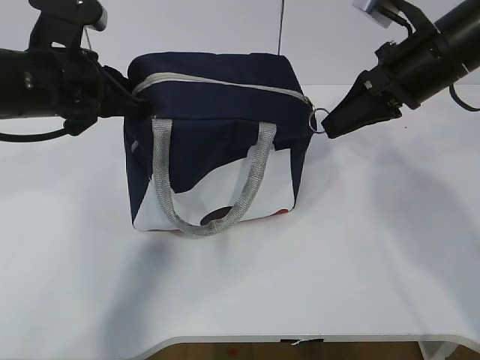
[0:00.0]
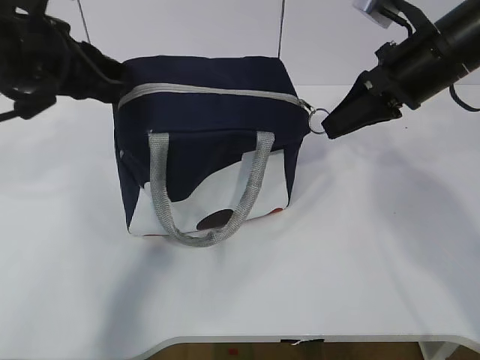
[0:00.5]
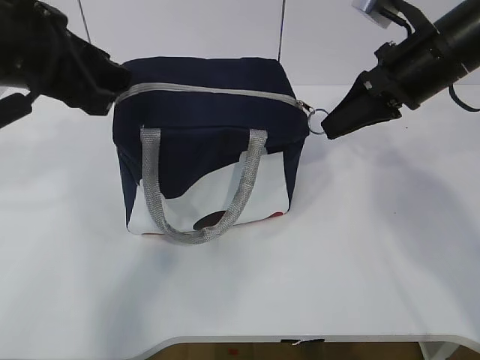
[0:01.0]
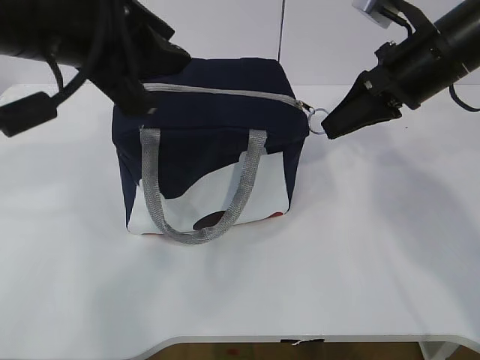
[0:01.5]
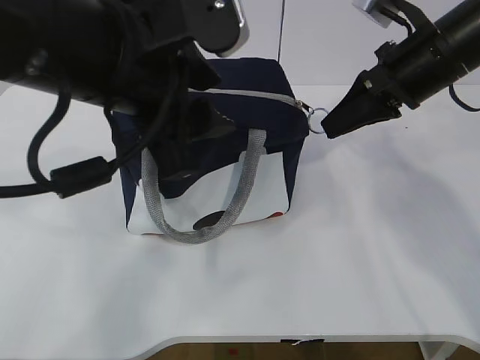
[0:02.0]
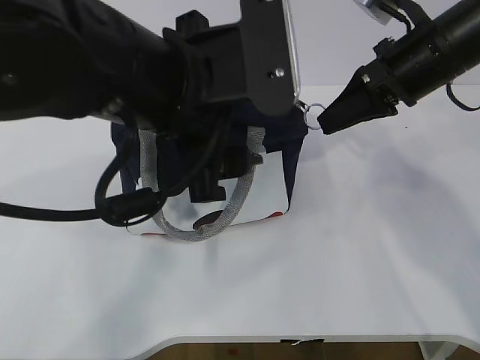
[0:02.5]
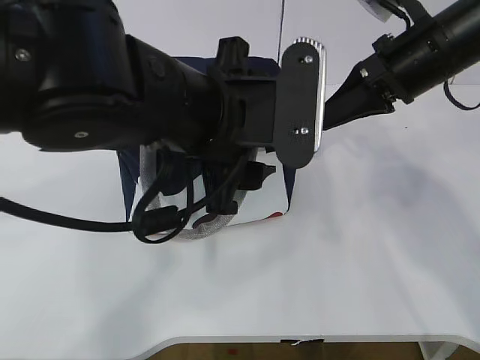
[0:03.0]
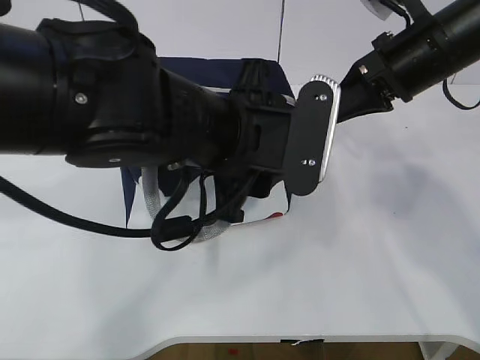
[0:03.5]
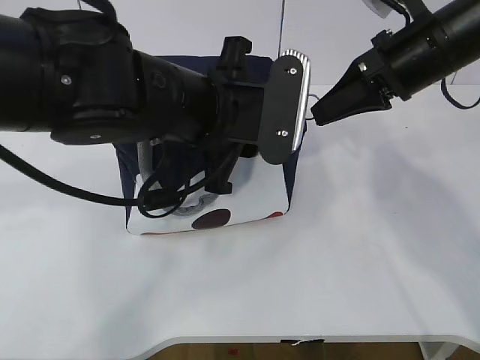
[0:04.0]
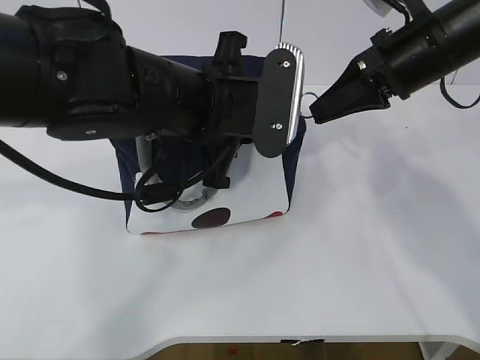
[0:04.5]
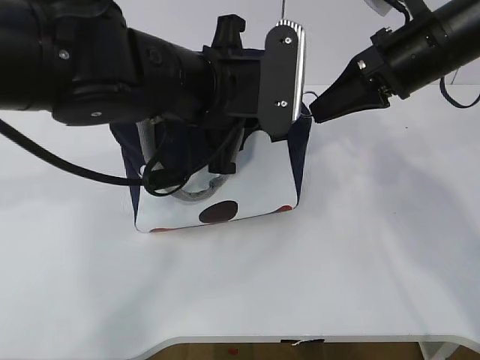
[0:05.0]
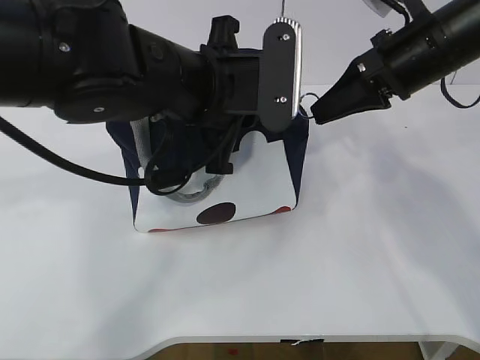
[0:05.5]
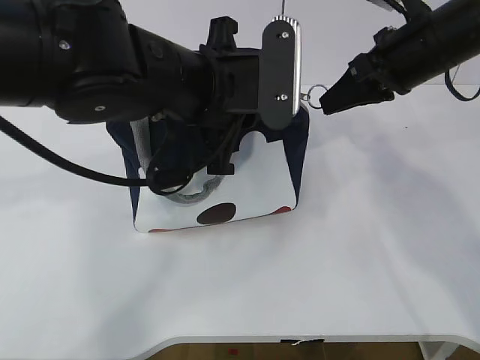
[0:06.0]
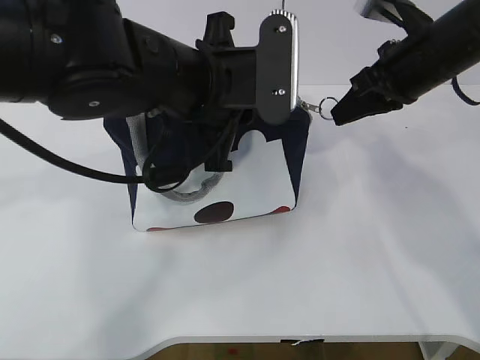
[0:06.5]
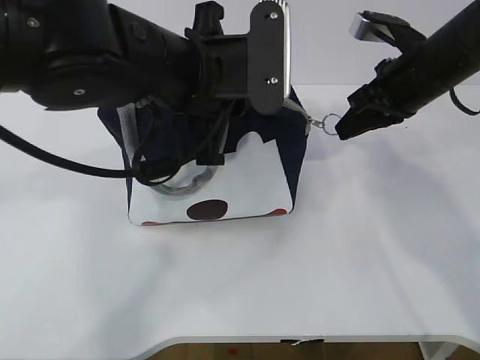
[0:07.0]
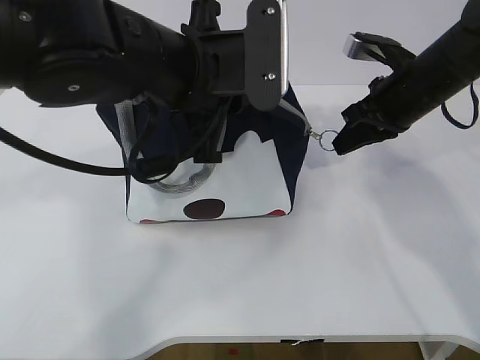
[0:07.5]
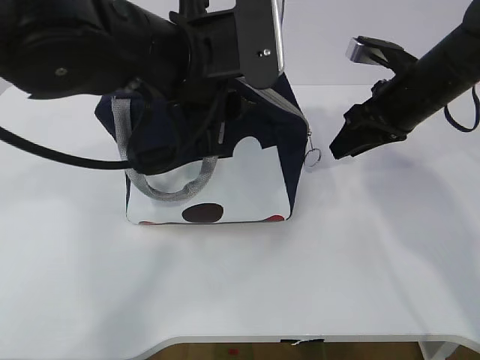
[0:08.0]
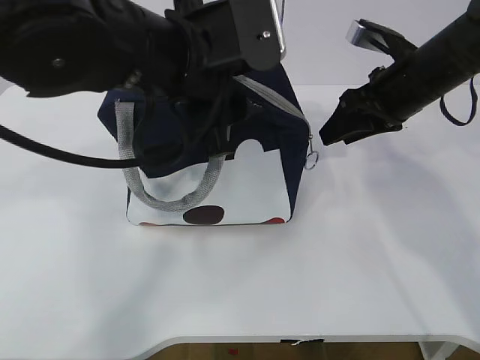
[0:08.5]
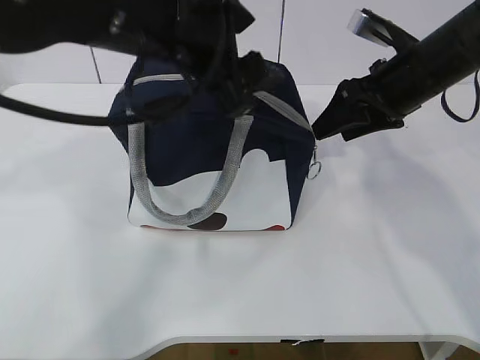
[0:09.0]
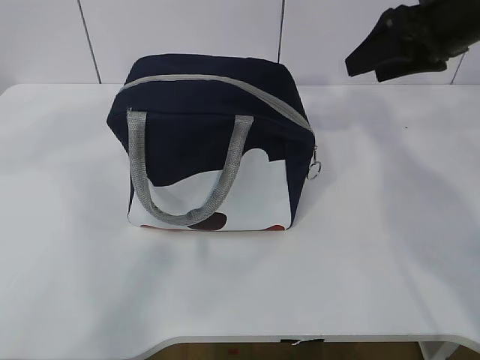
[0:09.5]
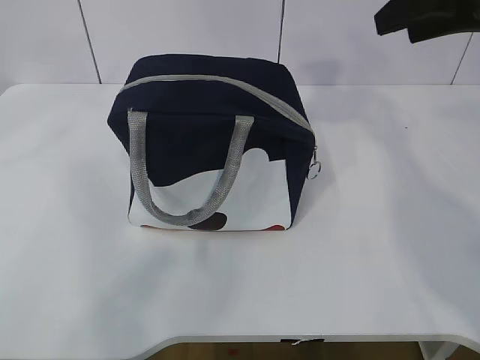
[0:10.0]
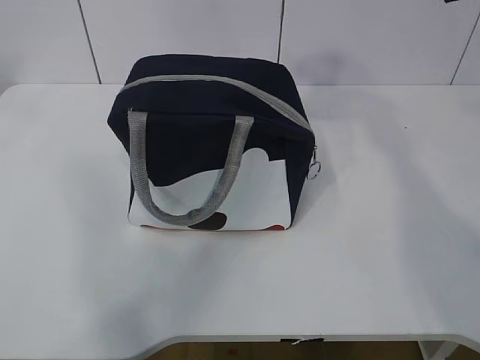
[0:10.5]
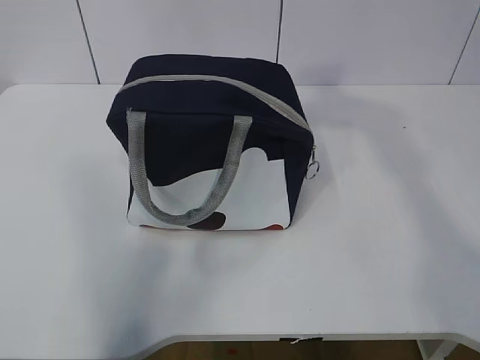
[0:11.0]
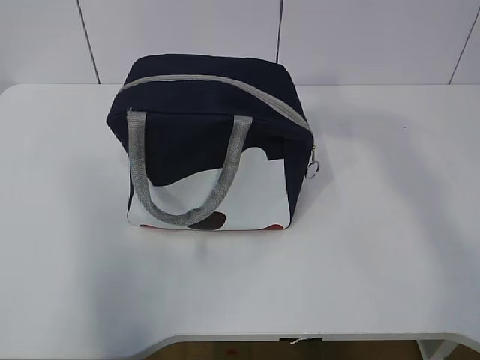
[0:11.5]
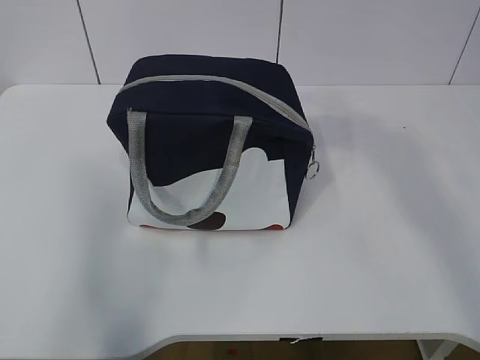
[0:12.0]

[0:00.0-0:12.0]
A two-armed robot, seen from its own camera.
0:00.0 to 0:02.0: The left gripper moves backward, to the right and upward, roughly 15 cm, and opens its fingers.
0:02.0 to 0:04.0: The left gripper heads downward and forward, covering some 10 cm.
0:04.0 to 0:06.0: The left gripper closes its fingers.
0:06.0 to 0:08.0: The left gripper opens its fingers. The right gripper moves downward, some 5 cm, and opens its fingers.
0:08.0 to 0:10.0: The left gripper heads upward and to the left, covering approximately 25 cm. The right gripper is displaced upward by approximately 15 cm, and opens its fingers.
0:10.0 to 0:12.0: The left gripper heads backward and to the left, covering approximately 25 cm. The right gripper shifts about 25 cm backward and upward.

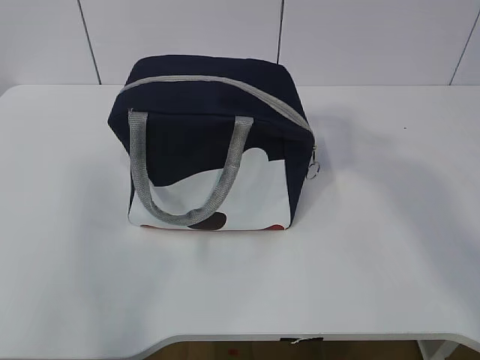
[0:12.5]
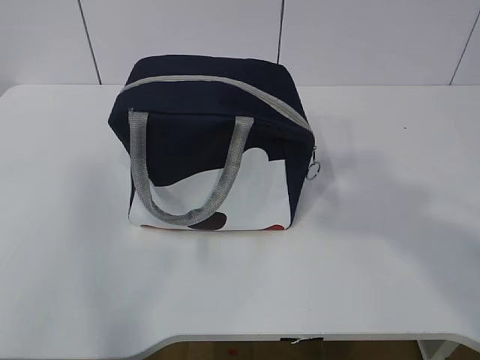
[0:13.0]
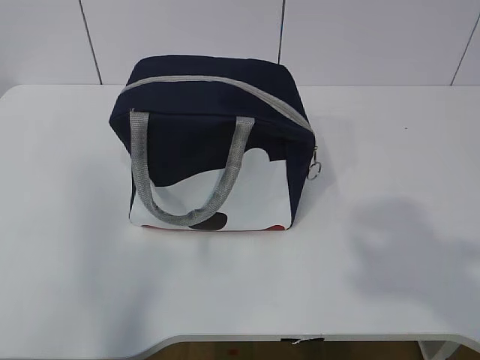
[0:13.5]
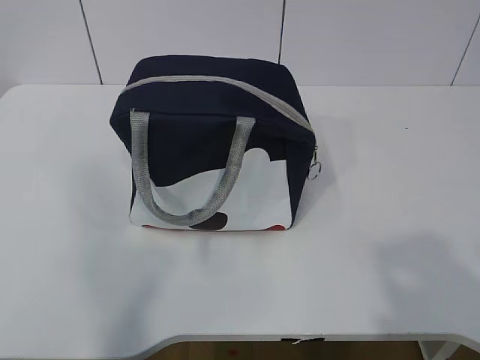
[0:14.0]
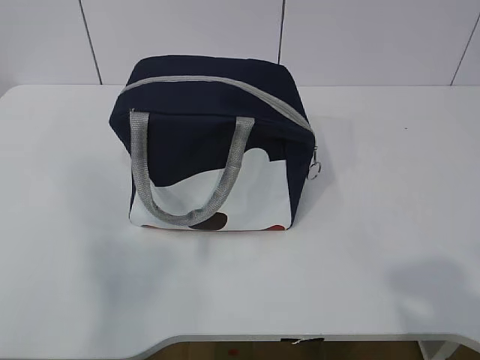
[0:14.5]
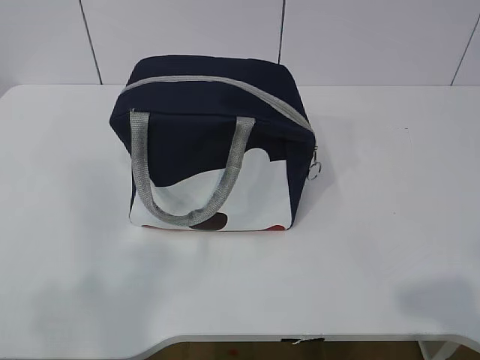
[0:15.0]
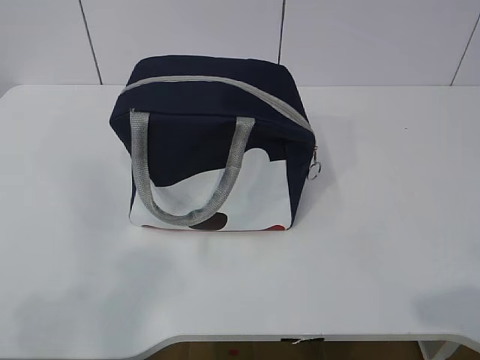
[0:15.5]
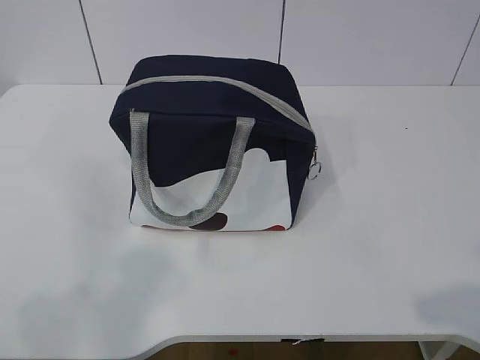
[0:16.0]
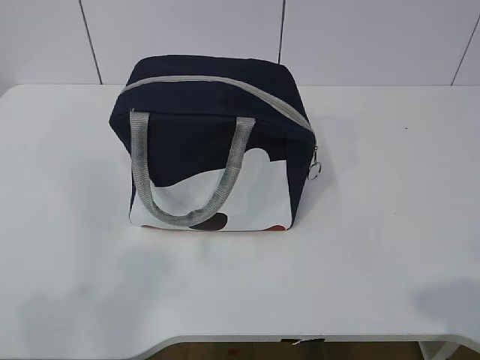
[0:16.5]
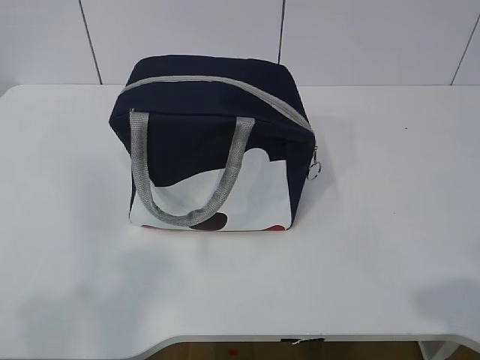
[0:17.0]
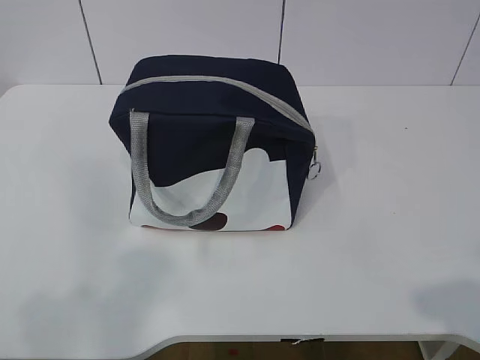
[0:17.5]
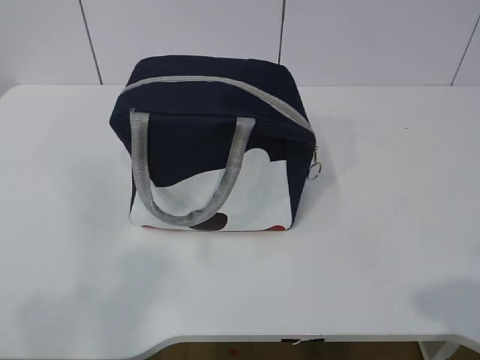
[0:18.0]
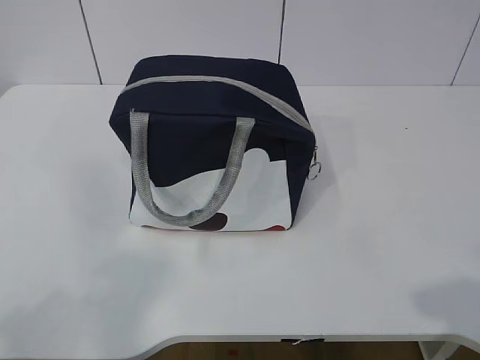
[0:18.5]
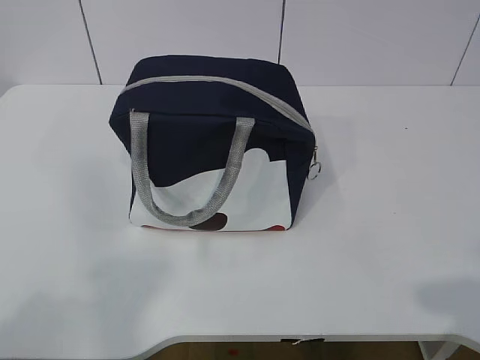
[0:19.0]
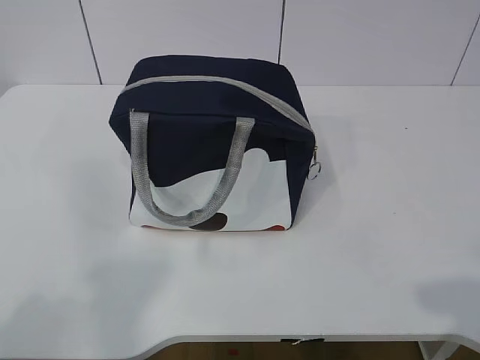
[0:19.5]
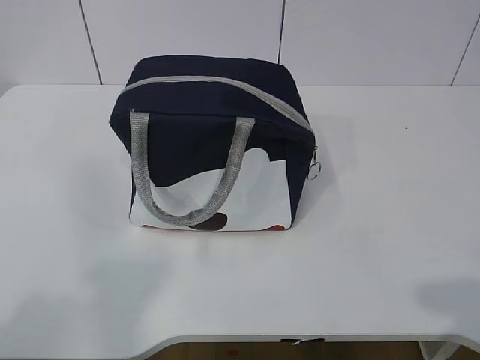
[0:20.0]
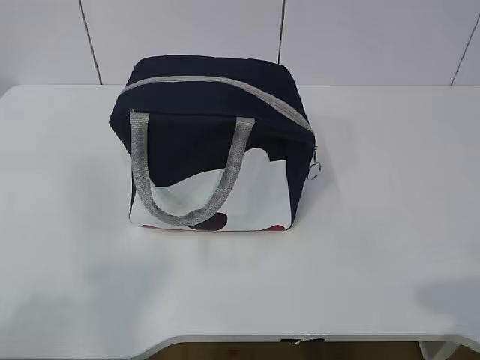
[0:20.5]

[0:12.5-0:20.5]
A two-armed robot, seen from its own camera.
0:12.5 to 0:14.5: The right gripper travels downward and backward by some 20 cm, while the left gripper moves downward, some 15 cm.
0:14.5 to 0:16.5: The right gripper moves downward, roughly 5 cm.

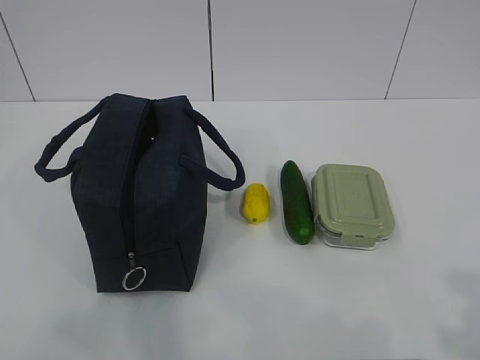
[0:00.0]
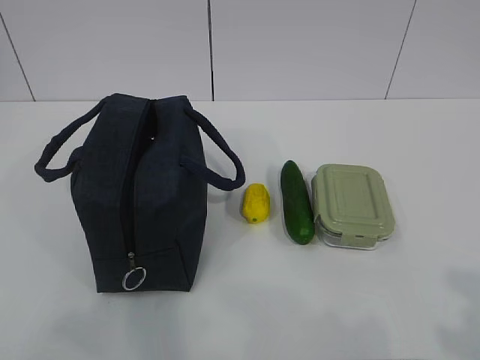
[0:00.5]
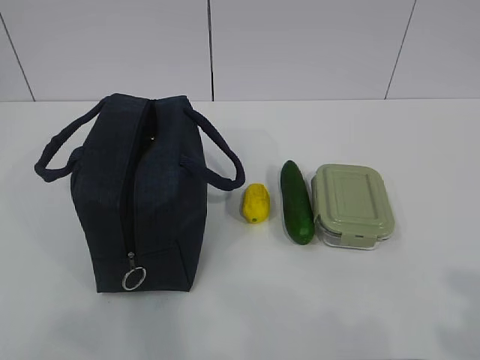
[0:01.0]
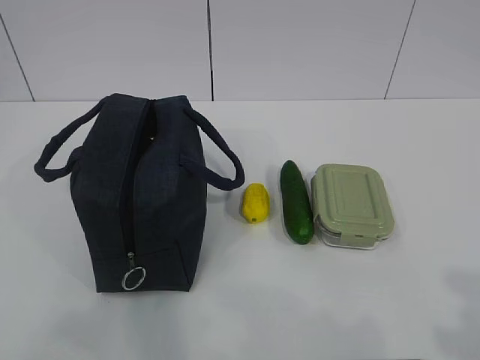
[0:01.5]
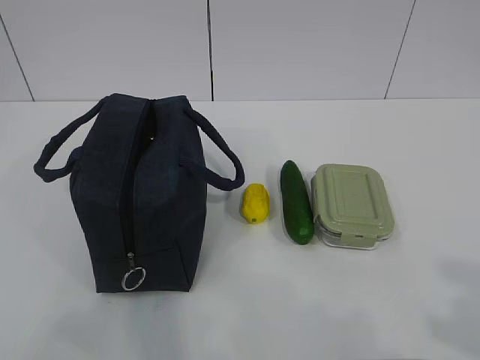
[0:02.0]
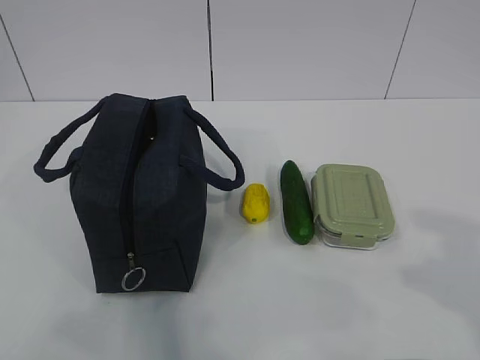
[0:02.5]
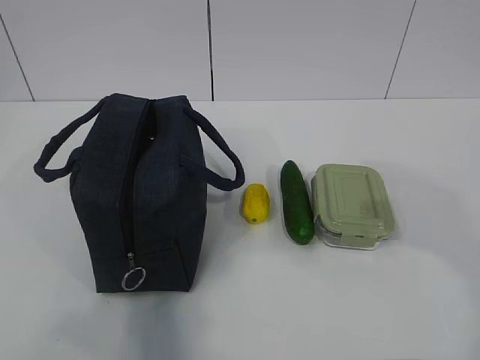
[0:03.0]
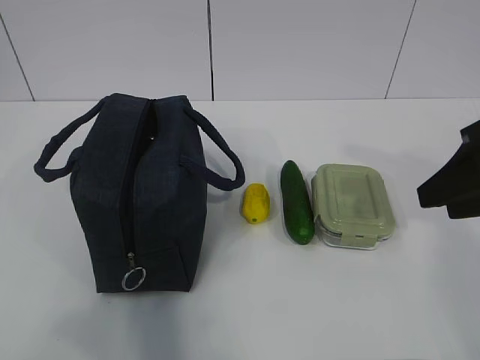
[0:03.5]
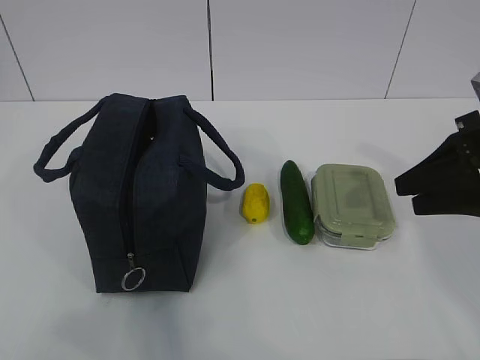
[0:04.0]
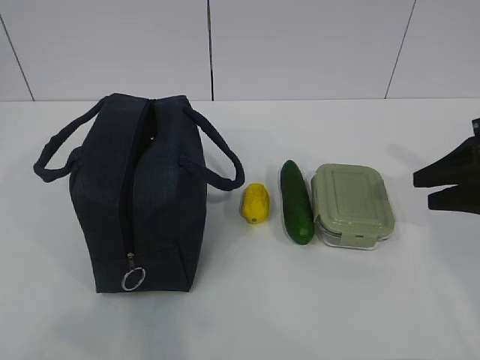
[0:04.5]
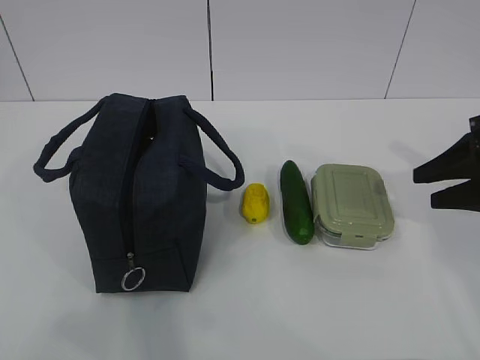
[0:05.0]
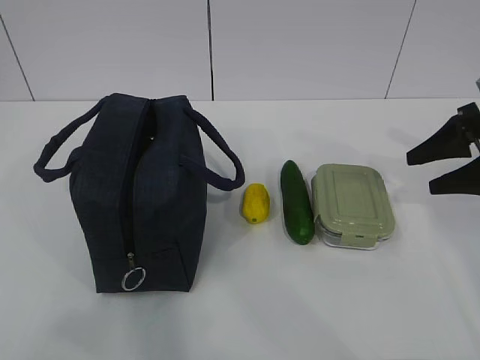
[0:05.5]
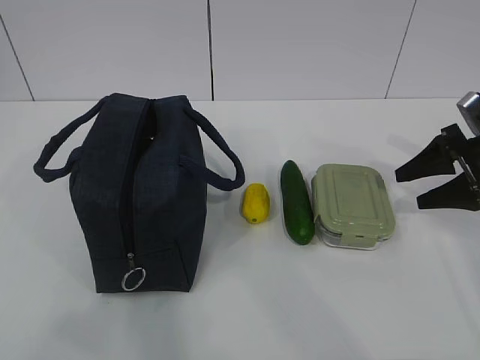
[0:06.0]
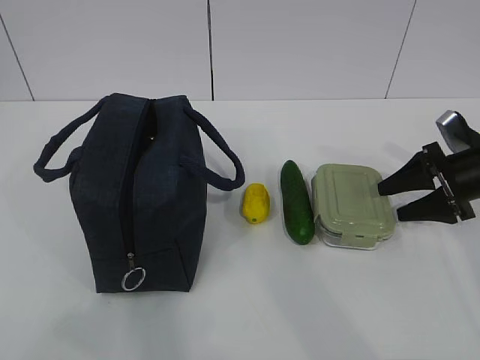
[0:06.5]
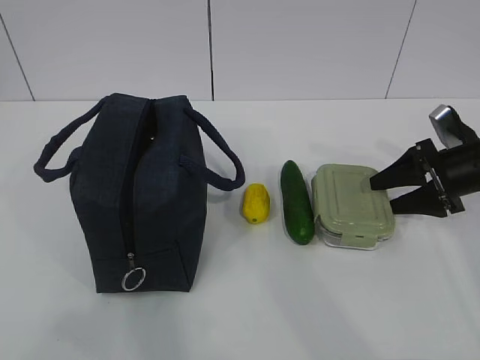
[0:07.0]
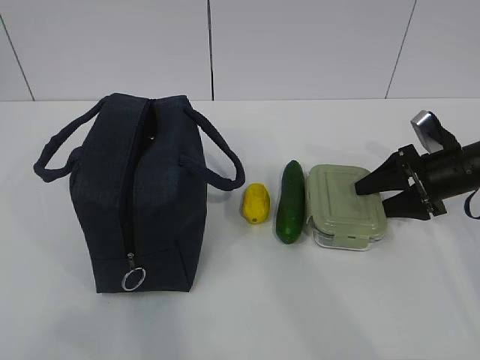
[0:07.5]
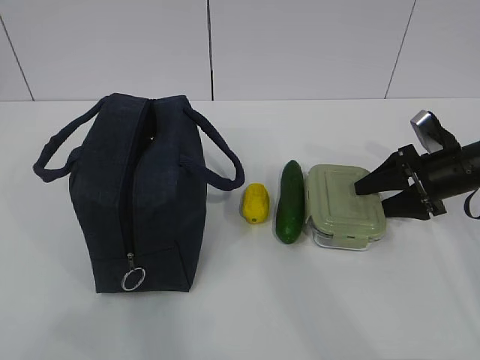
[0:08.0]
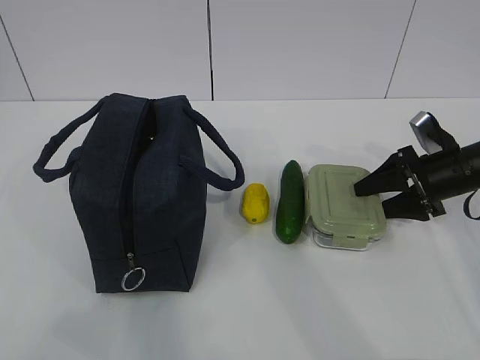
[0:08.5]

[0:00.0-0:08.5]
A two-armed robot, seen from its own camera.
0:02.0 to 0:04.0: The right gripper goes about 30 cm forward.
0:04.0 to 0:06.5: The right gripper moves downward, forward and to the right, about 15 cm, and opens.
0:06.5 to 0:08.5: The grippers stay close to where they were, moving slightly.
